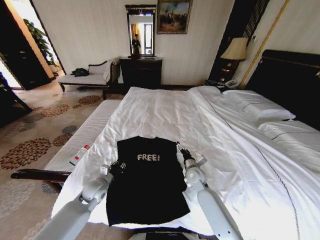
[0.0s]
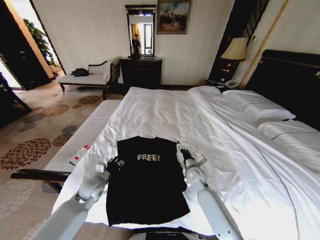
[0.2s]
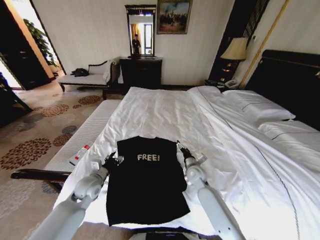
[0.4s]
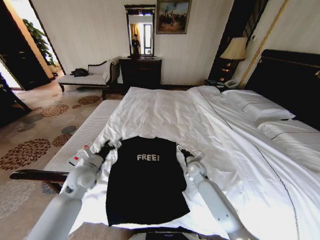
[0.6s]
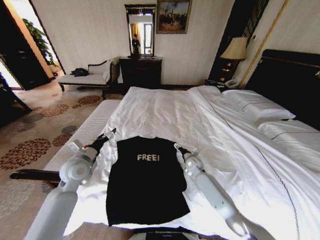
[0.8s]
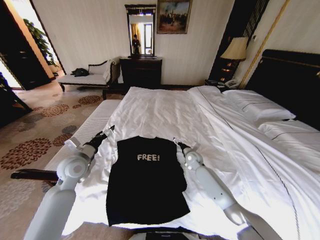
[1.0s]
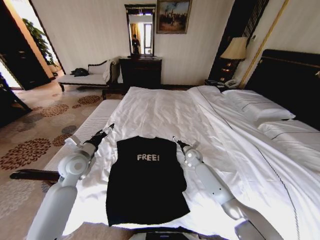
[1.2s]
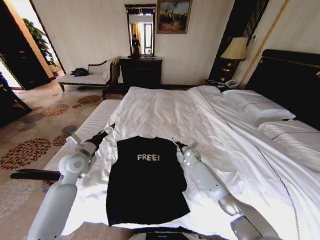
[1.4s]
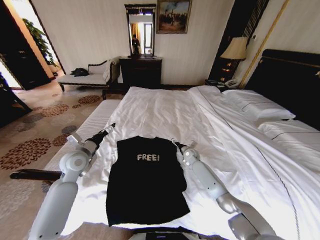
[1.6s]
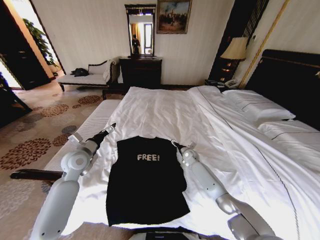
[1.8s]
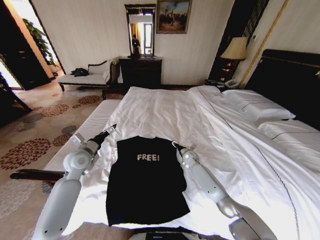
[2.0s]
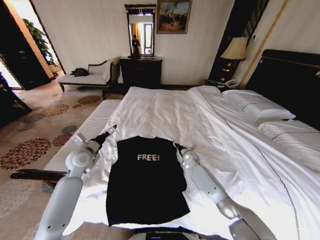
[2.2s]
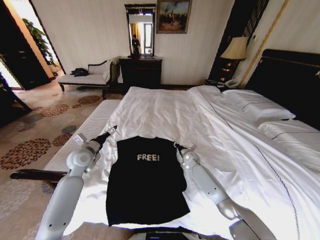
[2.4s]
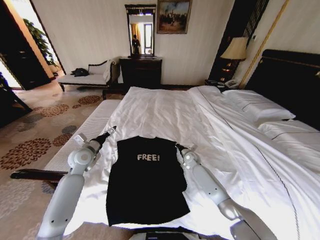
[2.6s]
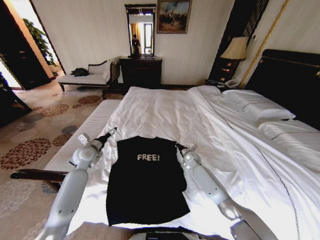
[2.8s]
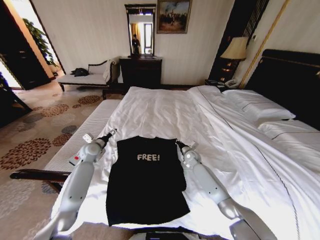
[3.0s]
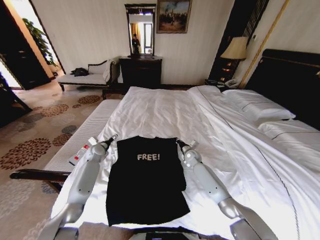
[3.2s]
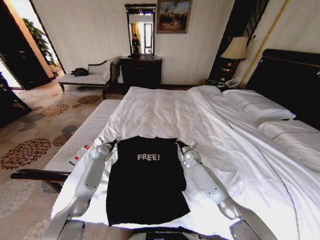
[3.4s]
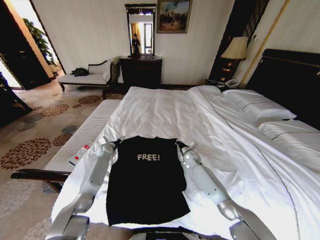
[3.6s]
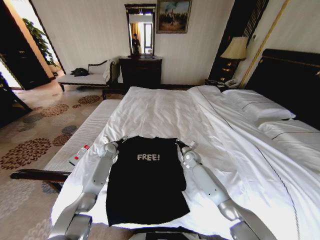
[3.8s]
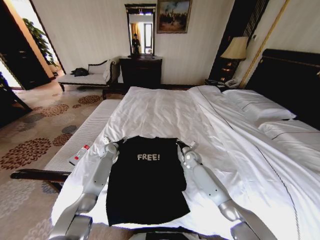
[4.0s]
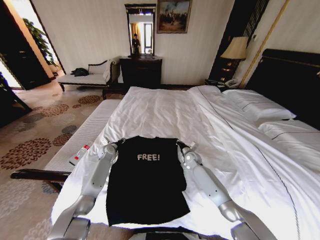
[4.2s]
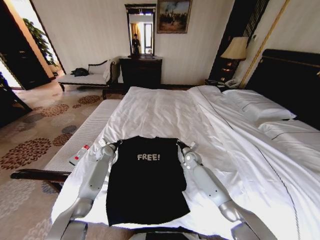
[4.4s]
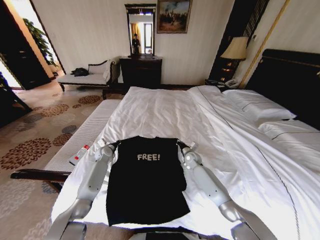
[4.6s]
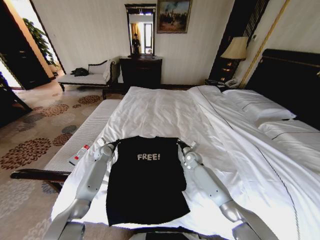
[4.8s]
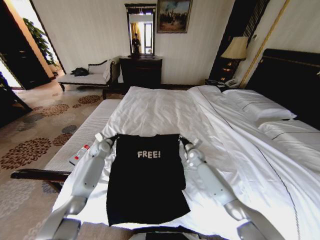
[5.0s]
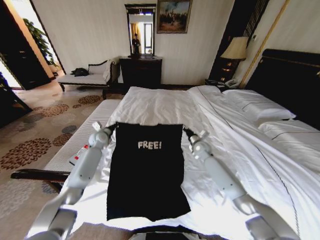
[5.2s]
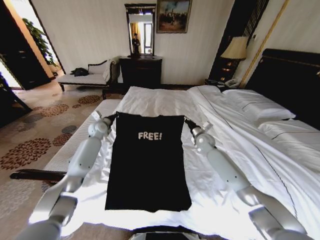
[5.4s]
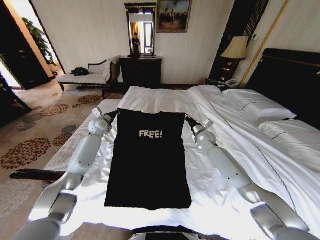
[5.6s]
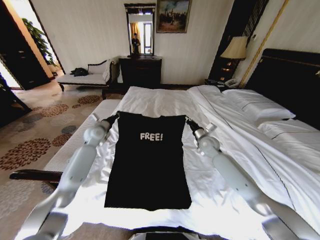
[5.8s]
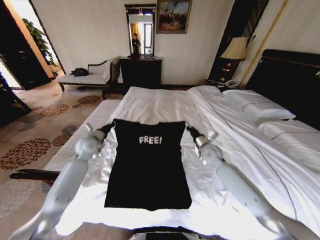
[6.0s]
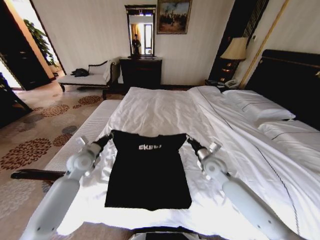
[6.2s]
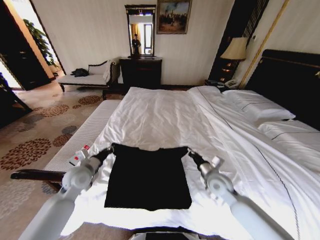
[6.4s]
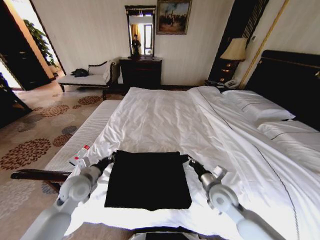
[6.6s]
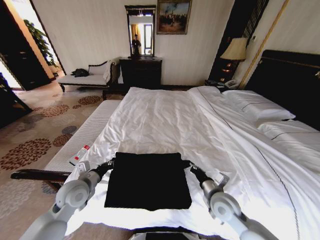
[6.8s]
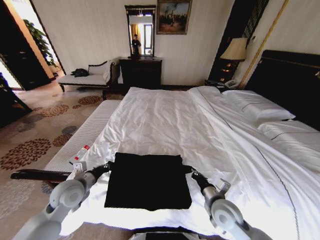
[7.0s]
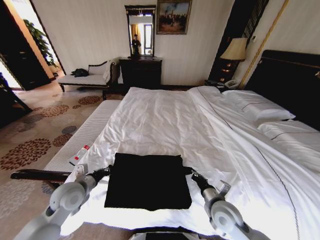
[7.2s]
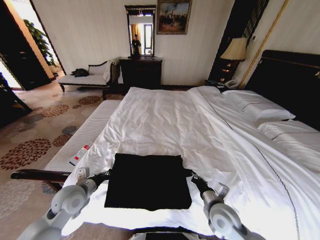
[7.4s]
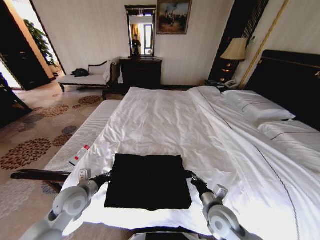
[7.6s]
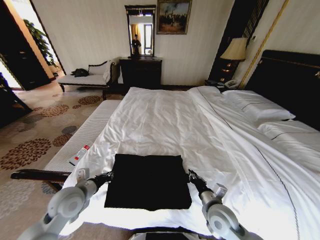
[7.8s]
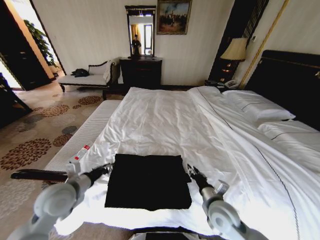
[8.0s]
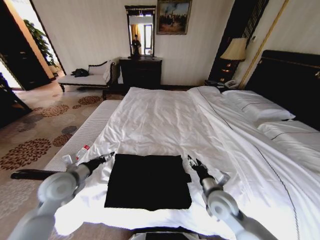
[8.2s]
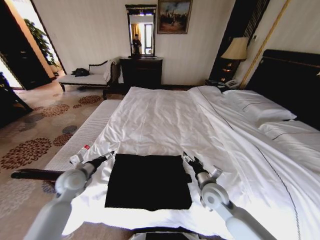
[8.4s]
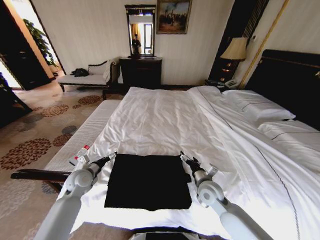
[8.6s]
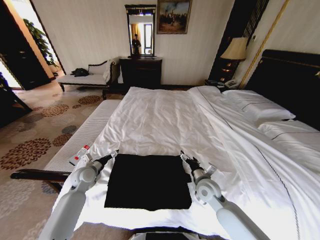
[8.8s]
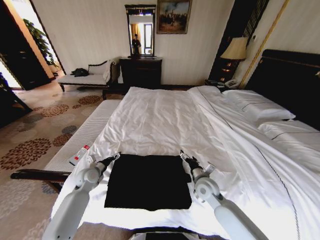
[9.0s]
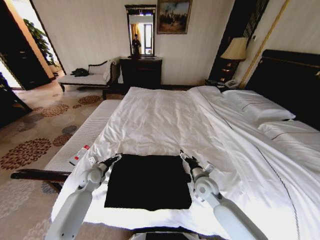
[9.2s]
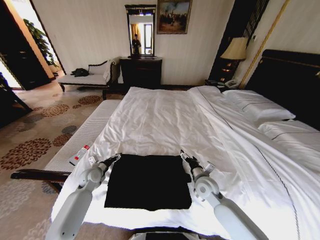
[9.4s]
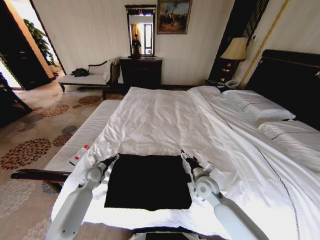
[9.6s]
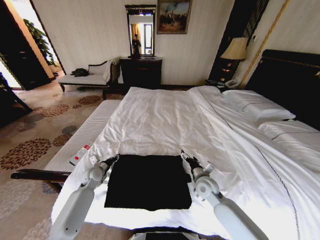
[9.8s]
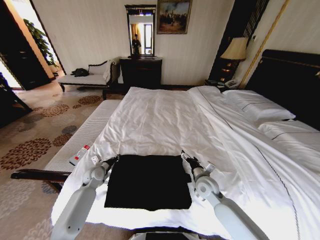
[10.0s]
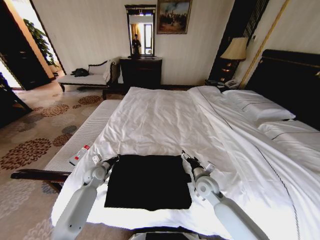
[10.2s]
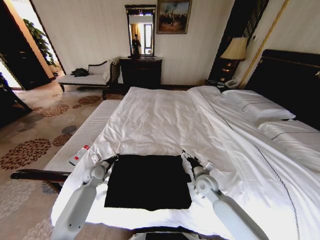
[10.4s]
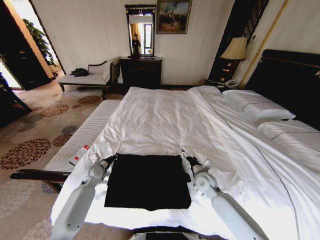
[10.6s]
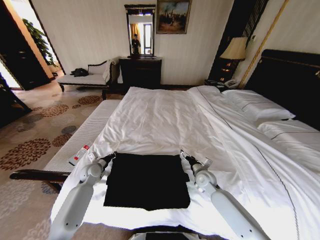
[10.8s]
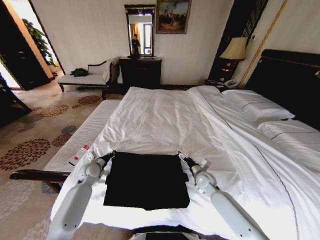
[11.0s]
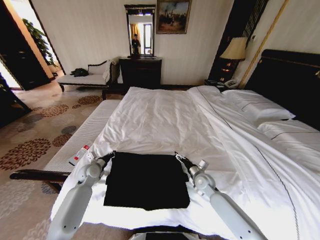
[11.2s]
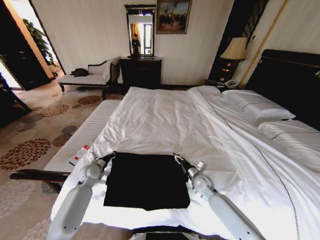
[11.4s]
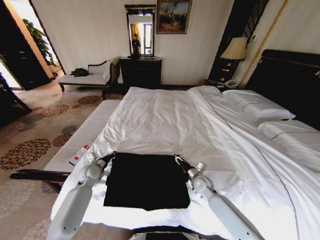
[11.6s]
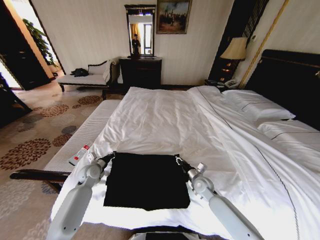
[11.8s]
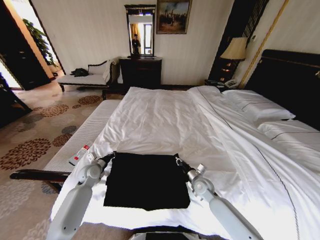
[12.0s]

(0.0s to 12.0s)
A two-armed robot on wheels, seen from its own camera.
Task of the whole recording: Fold the clothes on the bed.
0.0s - 1.6s: The left gripper is displaced upward by some 15 cm, and opens its fingers, while the right gripper travels forward by about 15 cm.
1.6s - 3.0s: The left gripper travels forward and downward by some 15 cm, while the right gripper closes its fingers.
3.0s - 4.4s: The left gripper goes some 10 cm downward, and closes its fingers.
4.4s - 6.0s: The grippers both shift upward and backward by about 15 cm.
6.0s - 7.6s: The two grippers go some 20 cm backward.
7.6s - 9.0s: The right gripper travels forward by some 10 cm, and opens. The left gripper goes approximately 15 cm forward and downward, and opens.
9.0s - 10.4s: The left gripper closes.
10.4s - 12.0s: The right gripper is displaced downward by some 5 cm, and closes up.

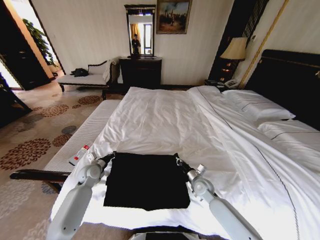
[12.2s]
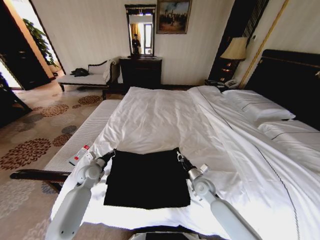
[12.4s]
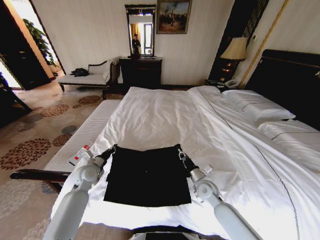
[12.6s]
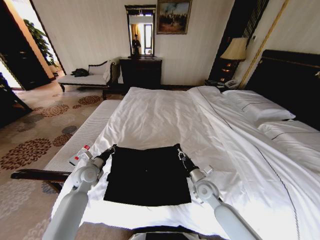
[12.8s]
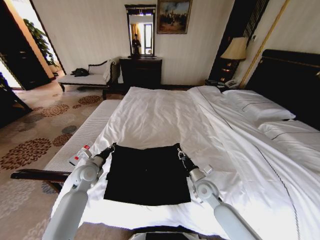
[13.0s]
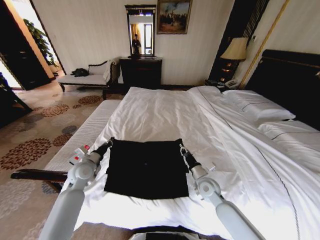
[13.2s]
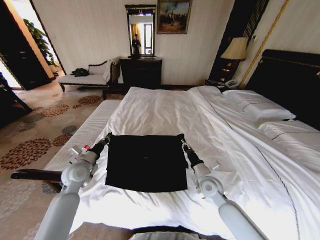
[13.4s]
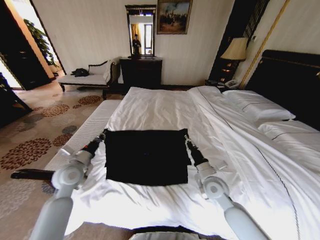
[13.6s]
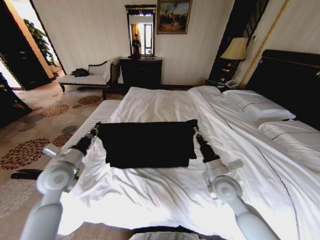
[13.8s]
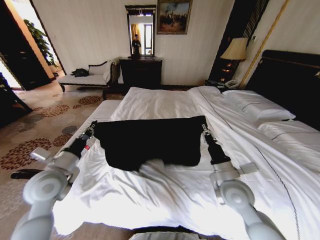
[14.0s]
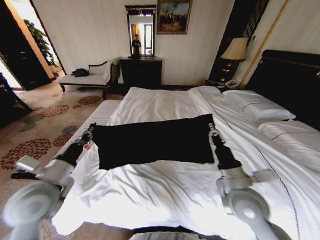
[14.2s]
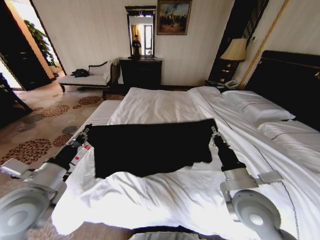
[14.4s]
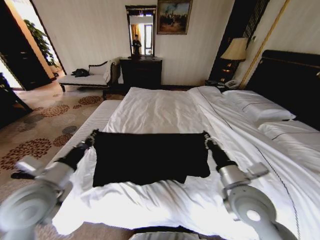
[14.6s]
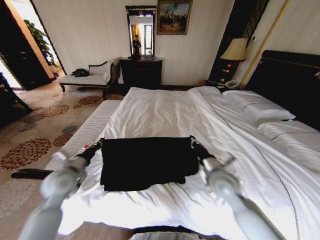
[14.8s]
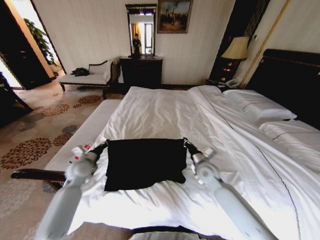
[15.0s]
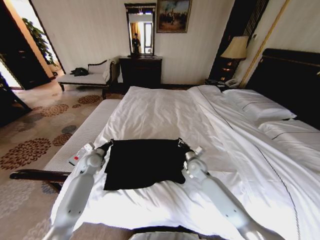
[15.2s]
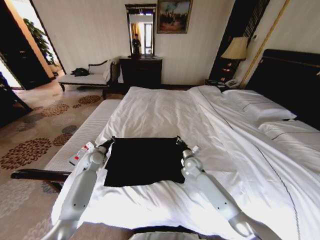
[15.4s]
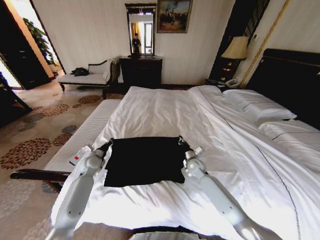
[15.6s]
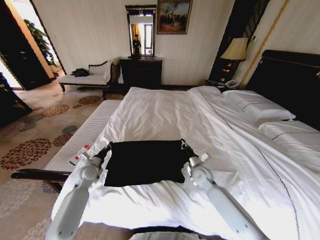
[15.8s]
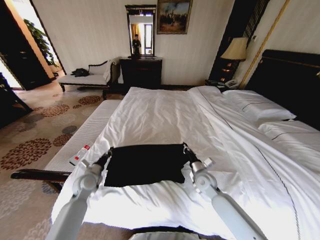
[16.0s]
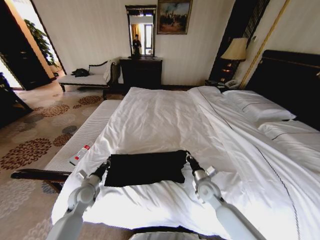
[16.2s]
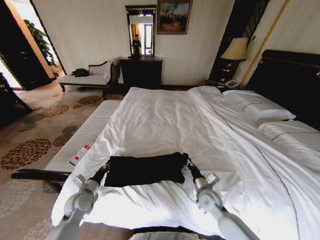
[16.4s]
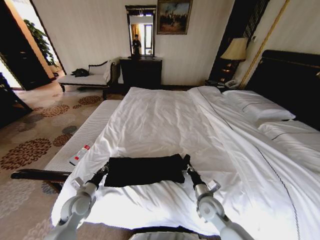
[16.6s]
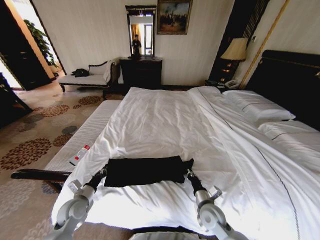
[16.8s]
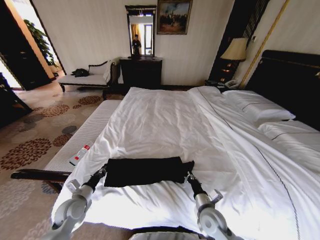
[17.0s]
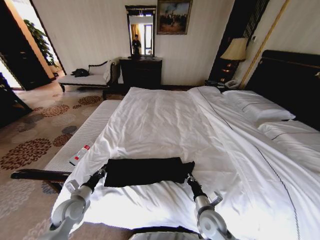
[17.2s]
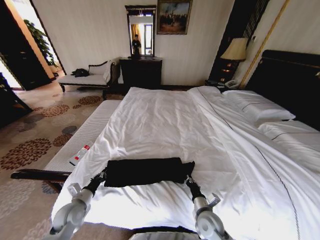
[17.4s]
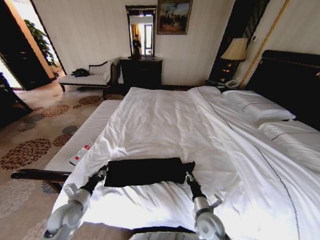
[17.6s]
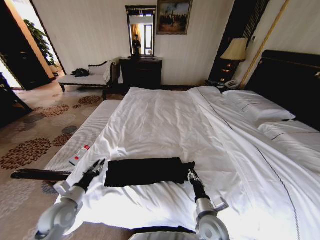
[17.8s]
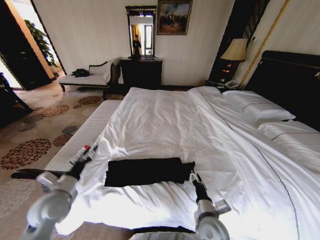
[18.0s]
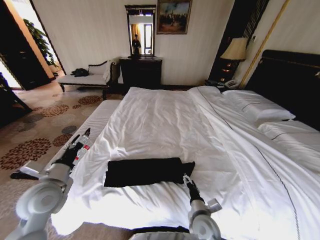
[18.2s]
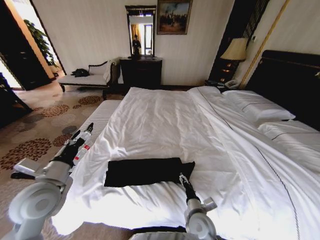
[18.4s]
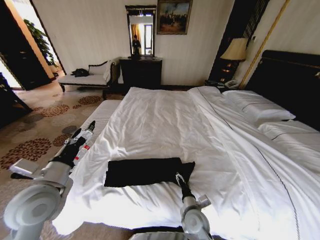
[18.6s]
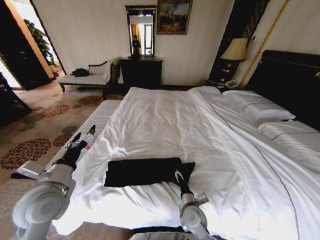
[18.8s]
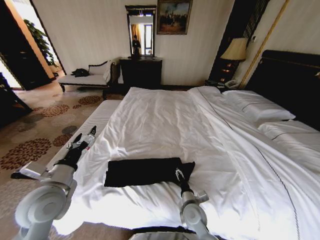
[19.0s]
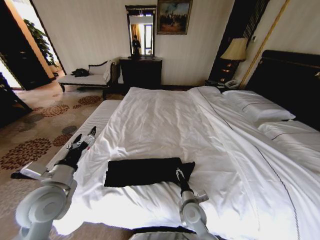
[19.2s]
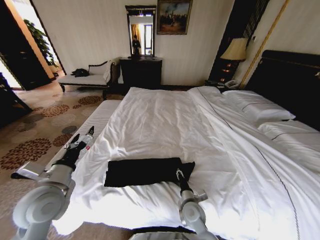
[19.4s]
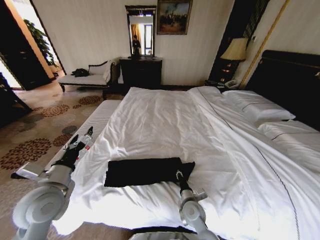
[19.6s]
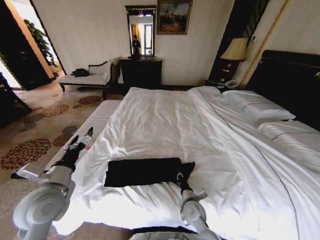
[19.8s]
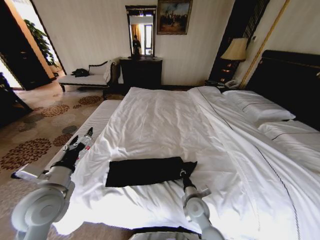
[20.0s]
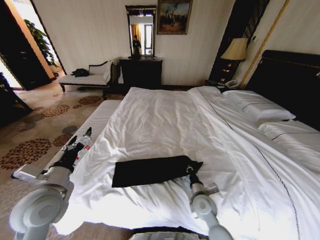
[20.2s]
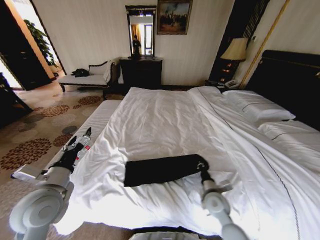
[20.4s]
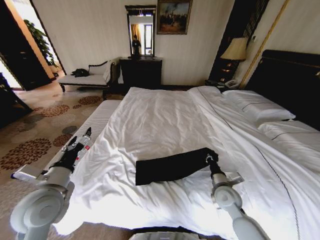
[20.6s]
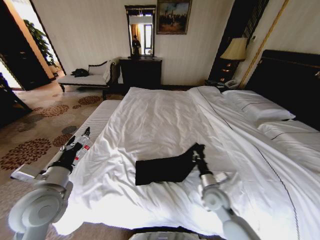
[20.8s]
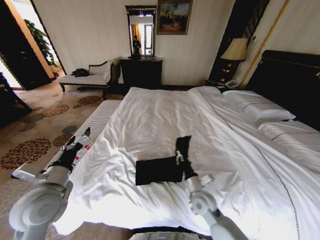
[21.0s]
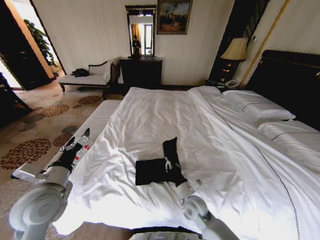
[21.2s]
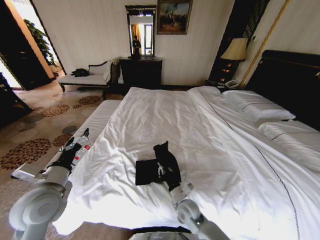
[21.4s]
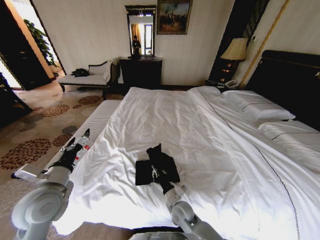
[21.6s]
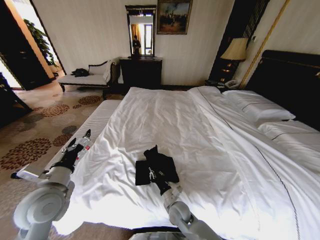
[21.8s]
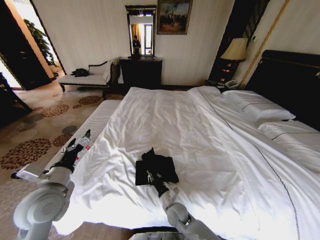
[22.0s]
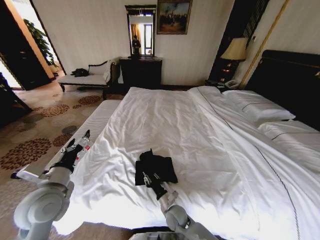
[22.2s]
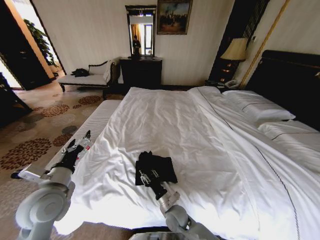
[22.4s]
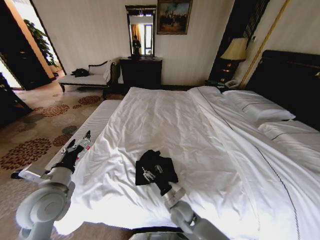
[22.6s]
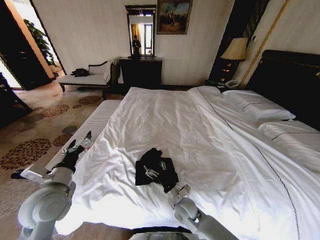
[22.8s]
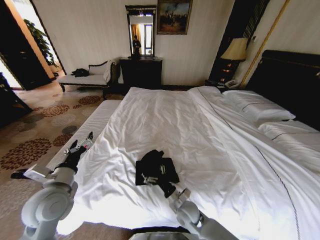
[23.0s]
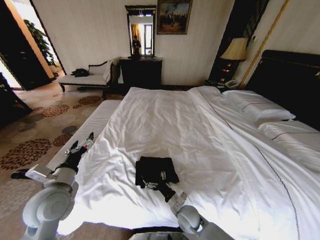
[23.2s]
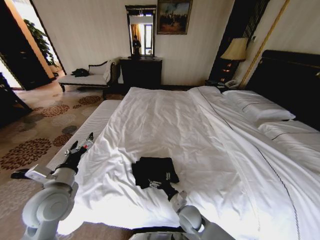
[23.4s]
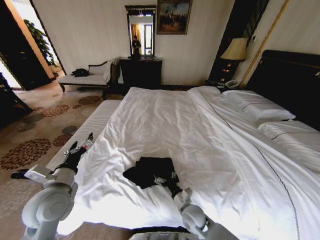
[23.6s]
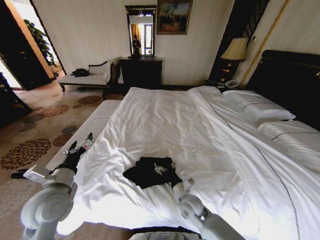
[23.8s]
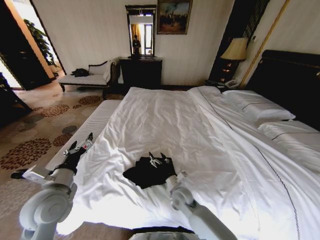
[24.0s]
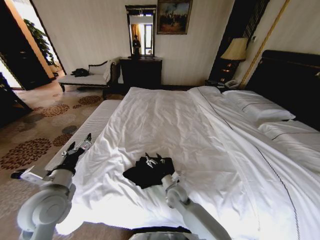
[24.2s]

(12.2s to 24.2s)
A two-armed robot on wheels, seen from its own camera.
Task of the whole recording: Fold the clothes on the bed.
12.2s - 13.8s: The left gripper heads upward and backward, covering about 20 cm; the right gripper goes about 15 cm upward.
13.8s - 15.2s: The two grippers go some 20 cm forward and downward.
15.2s - 16.6s: The grippers both shift backward by approximately 15 cm.
16.6s - 18.2s: The right gripper travels backward and to the left by approximately 10 cm, and opens. Meanwhile the left gripper heads upward, covering approximately 15 cm, and opens up.
18.2s - 19.8s: The right gripper travels forward by about 5 cm, and closes its fingers.
19.8s - 21.2s: The right gripper moves some 15 cm to the right and comes back.
21.2s - 22.6s: The right gripper is displaced to the left by about 5 cm, and opens up.
22.6s - 24.2s: The right gripper travels forward by some 5 cm, and opens up.
